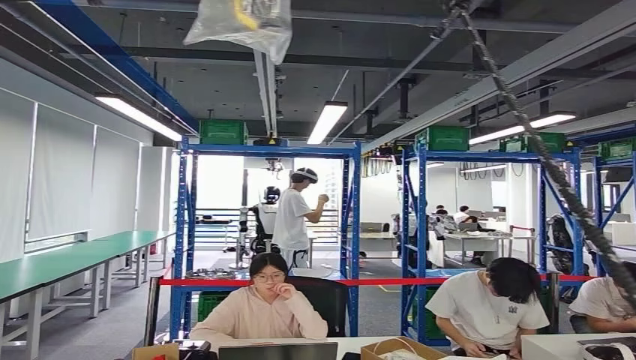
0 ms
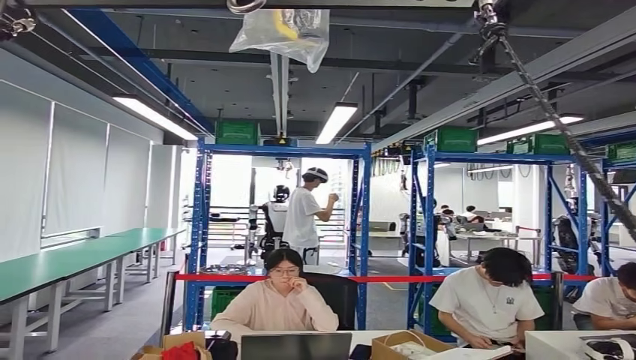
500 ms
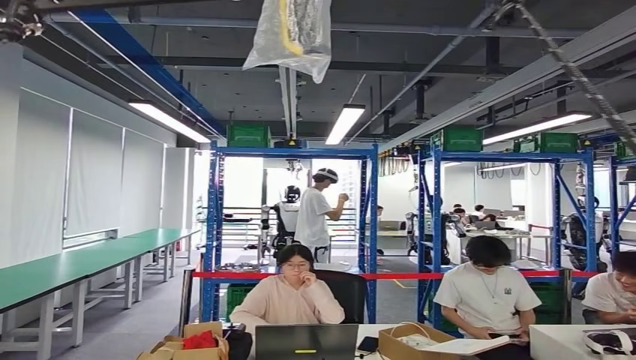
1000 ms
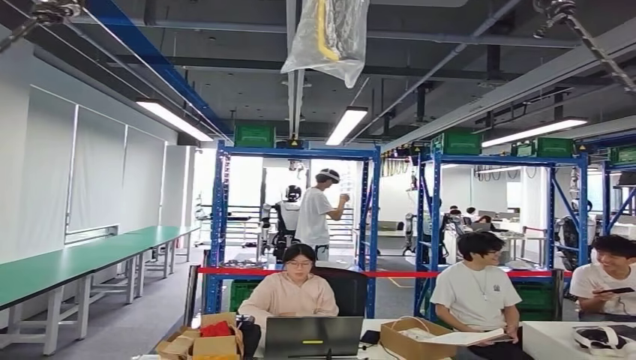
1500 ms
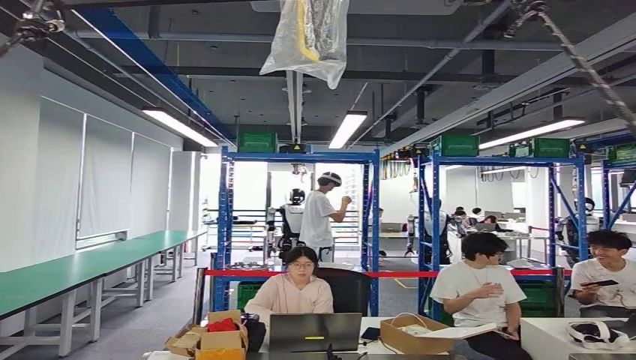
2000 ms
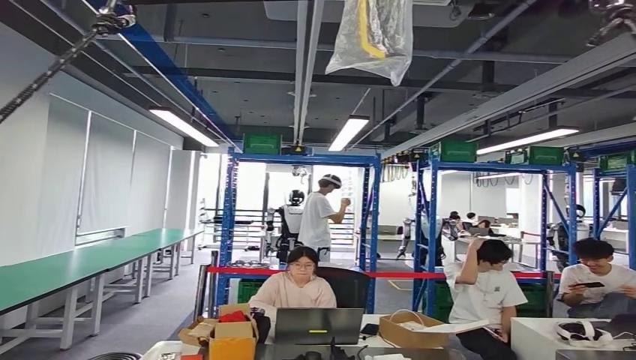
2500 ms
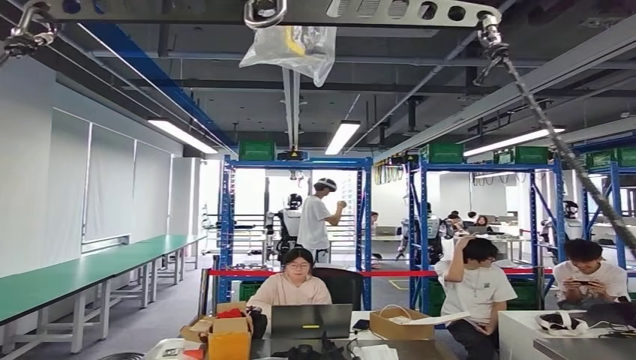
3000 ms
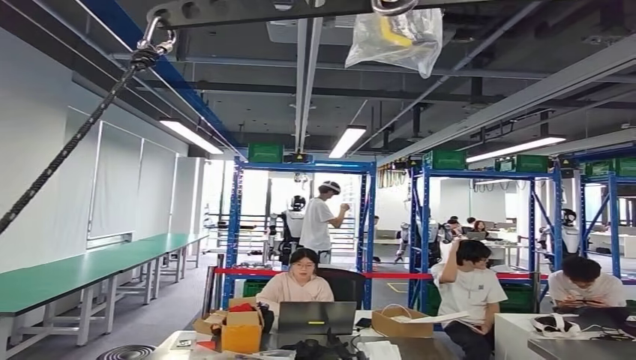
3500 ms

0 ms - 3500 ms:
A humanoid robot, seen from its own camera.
Step, 0 ms - 3500 ms: Move to the initial position at the workbench.
